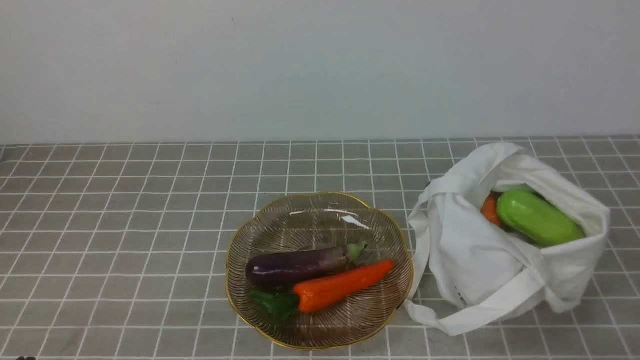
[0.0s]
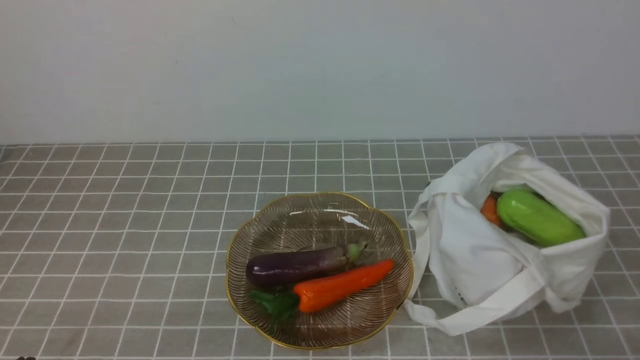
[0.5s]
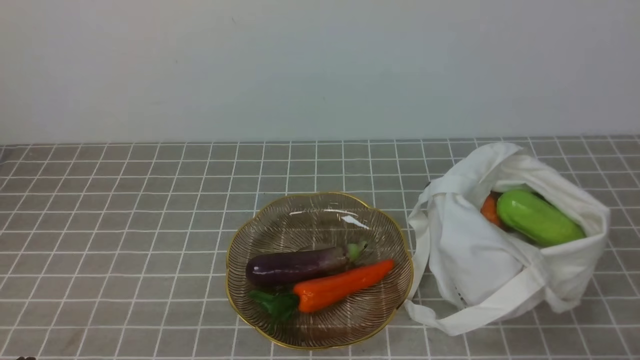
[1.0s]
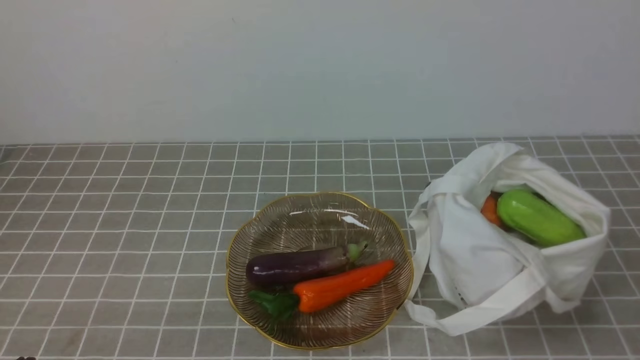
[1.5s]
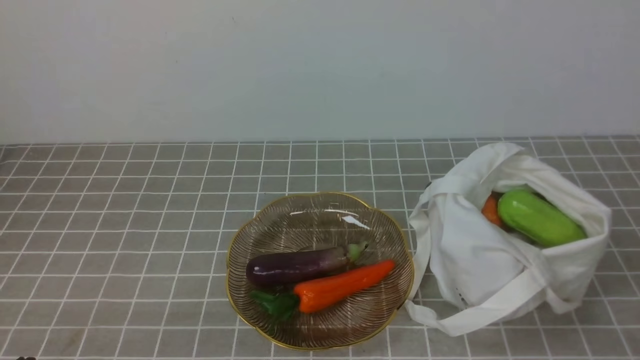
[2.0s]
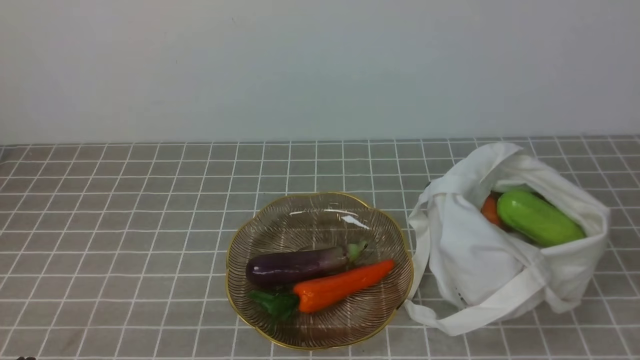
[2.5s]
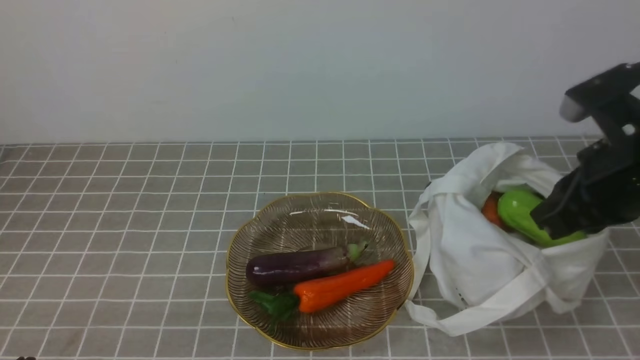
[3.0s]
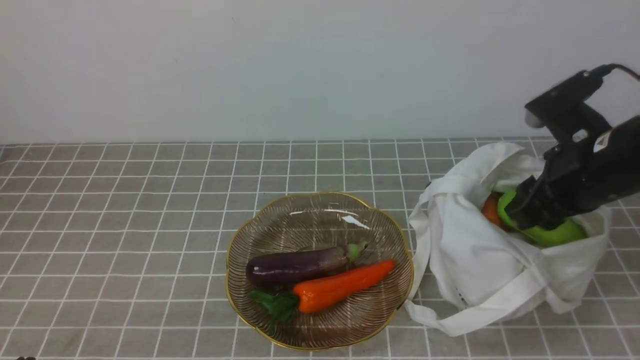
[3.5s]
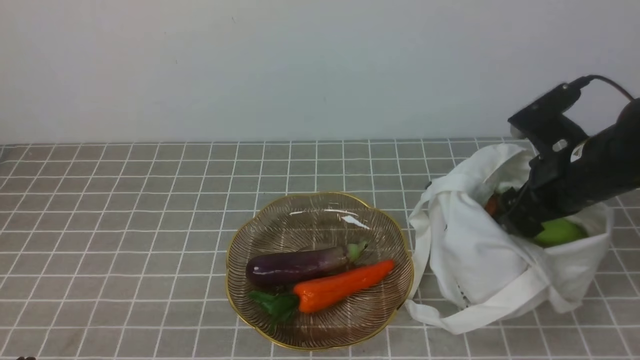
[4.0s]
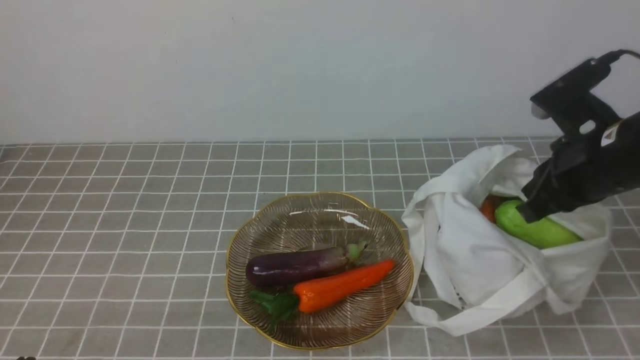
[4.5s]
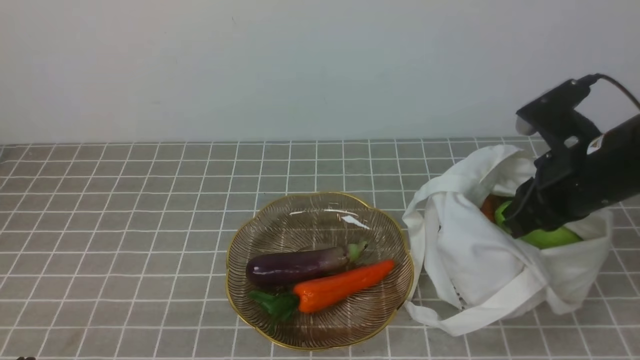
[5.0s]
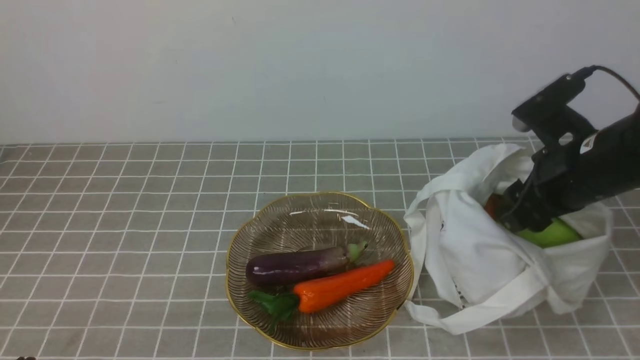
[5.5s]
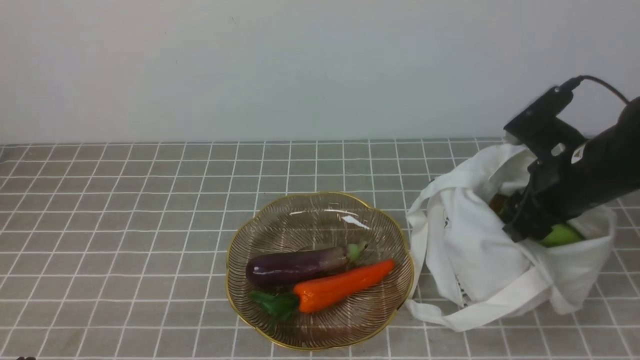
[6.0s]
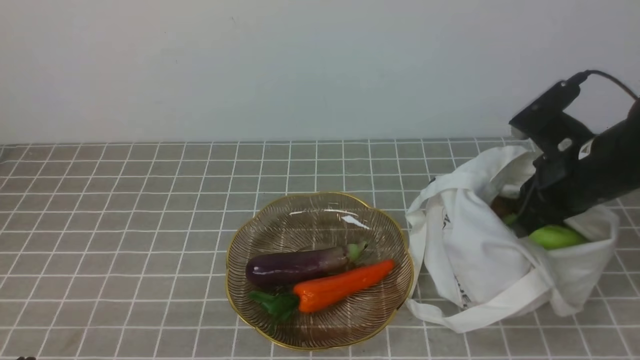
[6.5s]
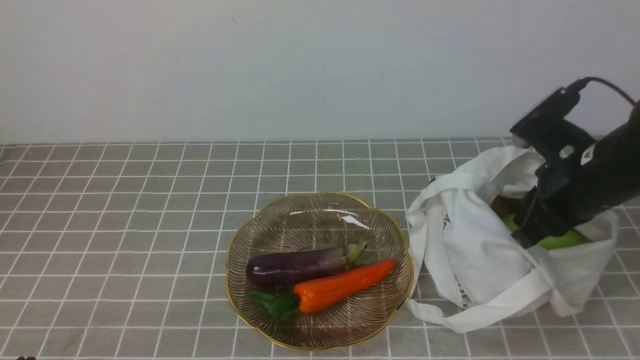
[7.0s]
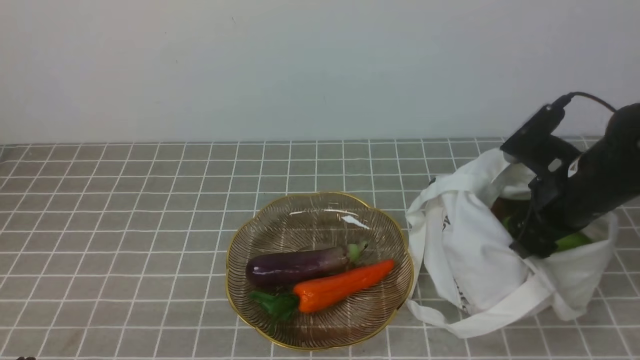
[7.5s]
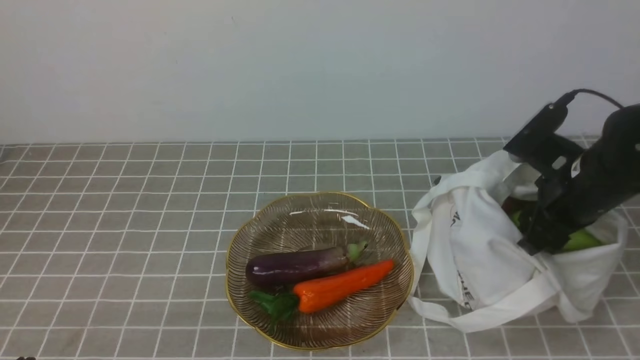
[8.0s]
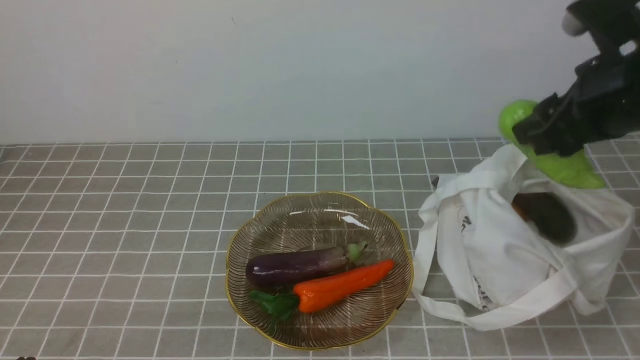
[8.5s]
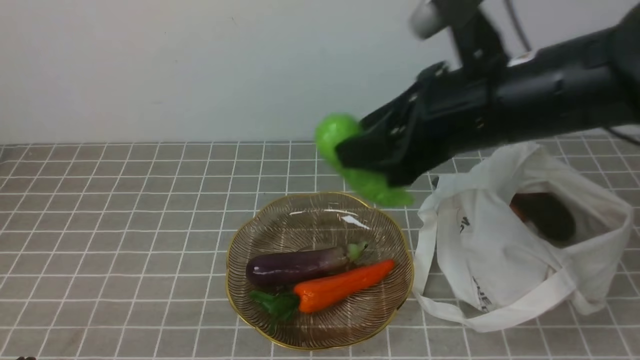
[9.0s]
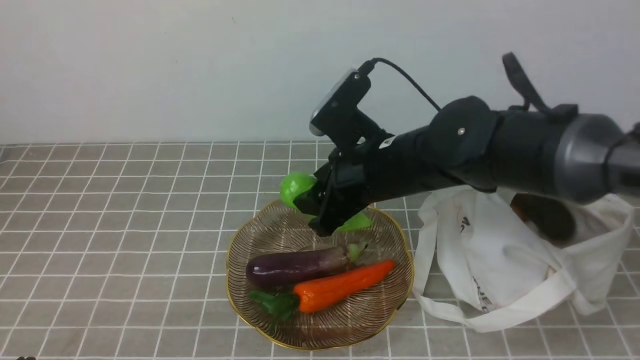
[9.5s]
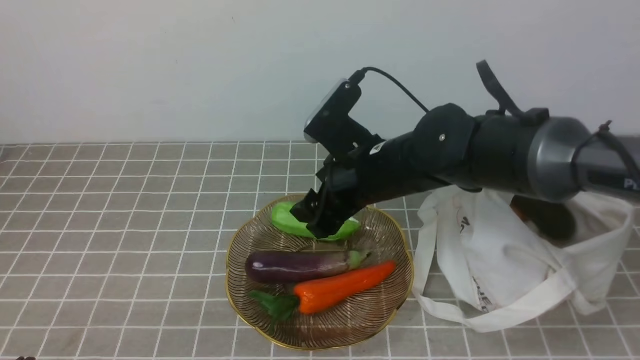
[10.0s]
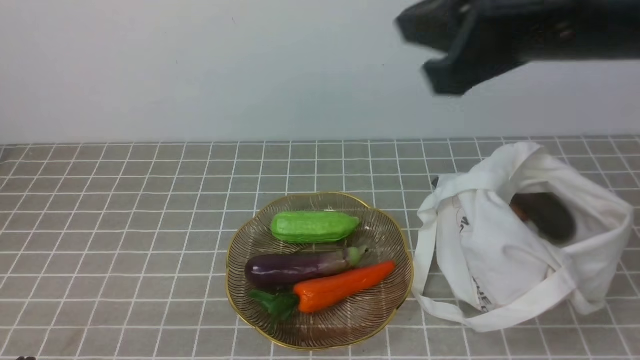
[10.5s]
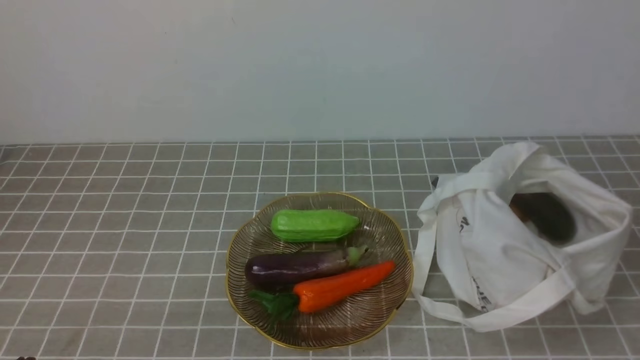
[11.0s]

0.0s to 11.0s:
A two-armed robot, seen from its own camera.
Task of the whole recording: take vegetables from bag on grey coffee tablecloth place on plate.
Step, 0.0s to 7.5s: Grasp the bitter melon with right gripper.
Step, 8.0s to 10.0s: Place the bitter melon on the plate with right gripper.
2.0s to 3.5s: The right gripper moves forward, some 25 cm, and opens its fingers.
3.5s to 5.5s: The right gripper closes, then opens again.
5.5s to 7.5s: The right gripper closes, then reopens.
7.5s to 9.0s: The right gripper travels upward and to the left by about 15 cm.
9.0s to 11.0s: The right gripper travels backward, to the right and upward by some 30 cm, and closes.

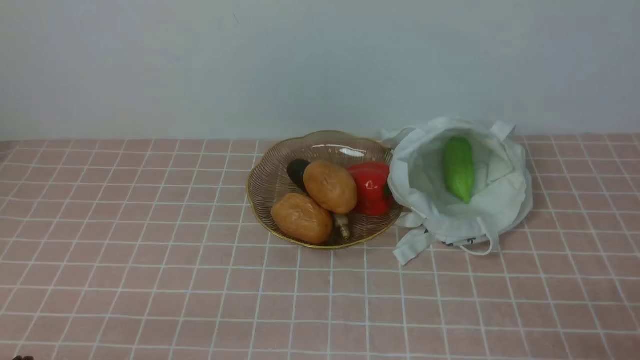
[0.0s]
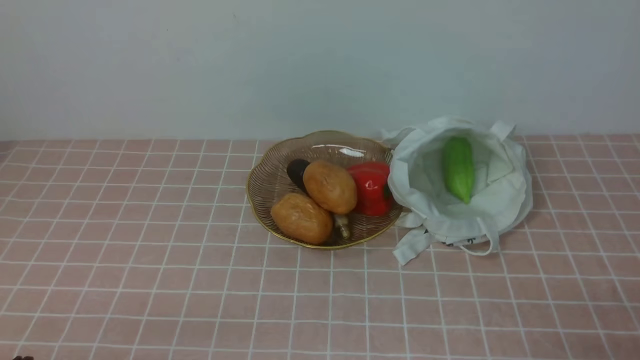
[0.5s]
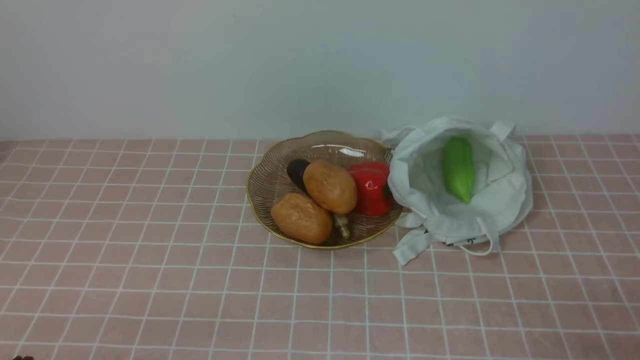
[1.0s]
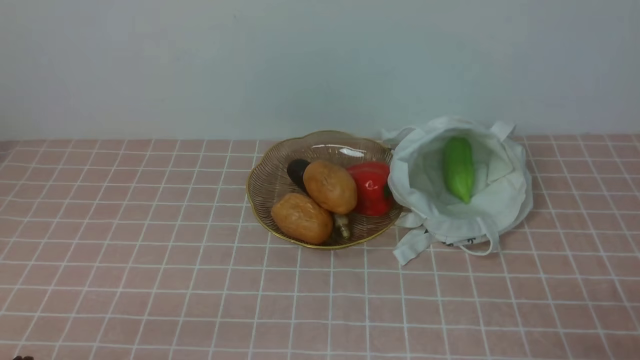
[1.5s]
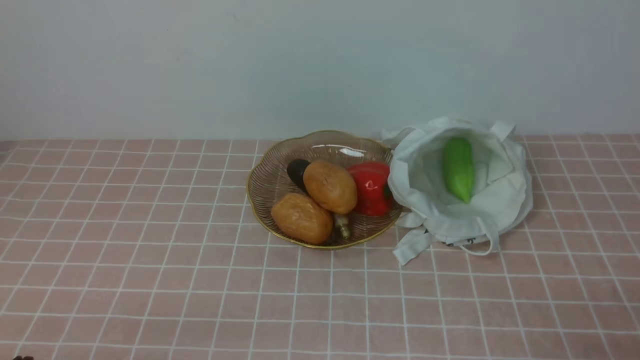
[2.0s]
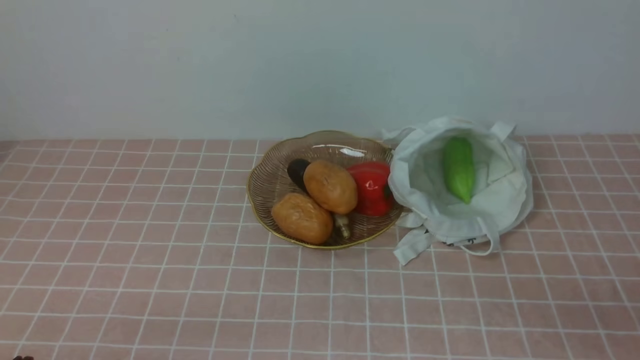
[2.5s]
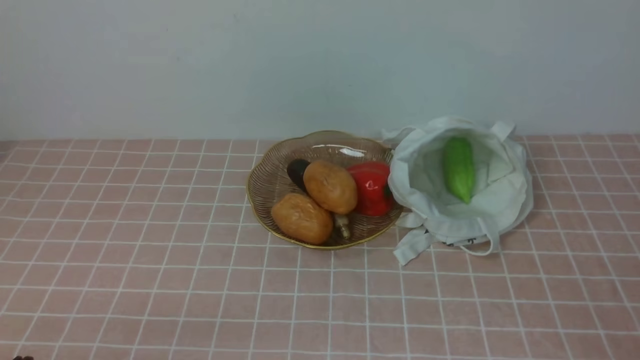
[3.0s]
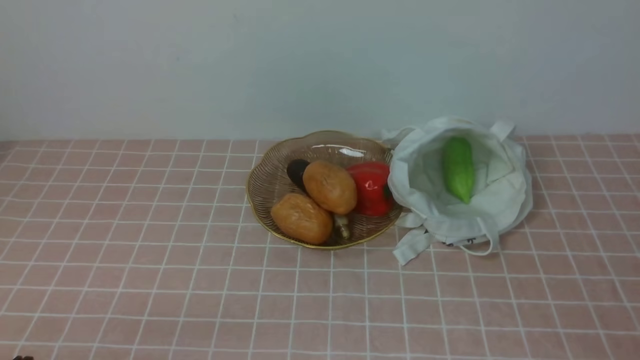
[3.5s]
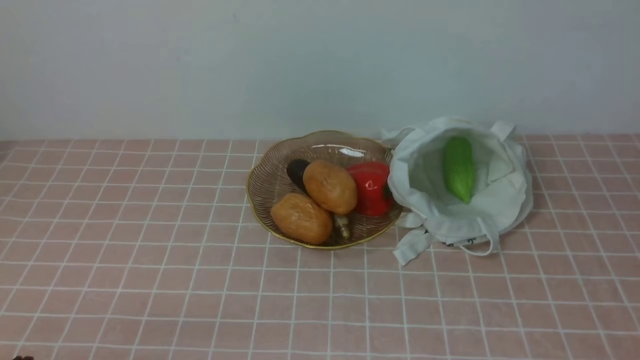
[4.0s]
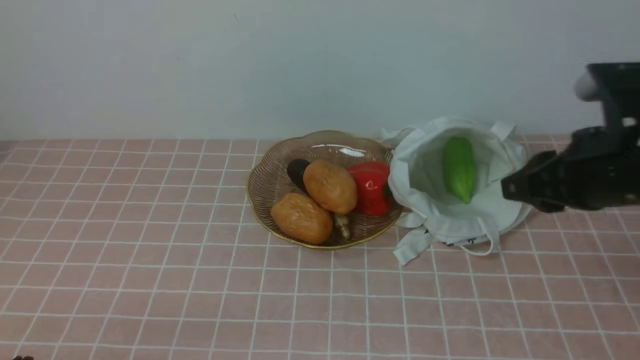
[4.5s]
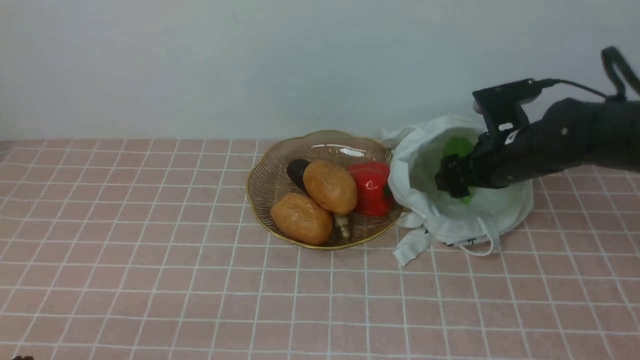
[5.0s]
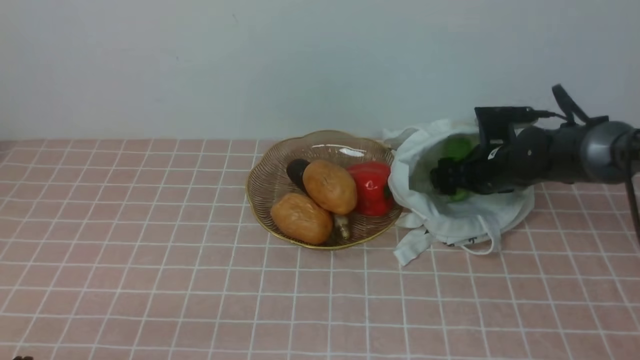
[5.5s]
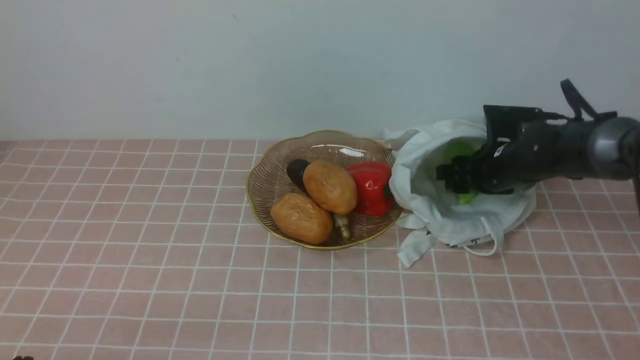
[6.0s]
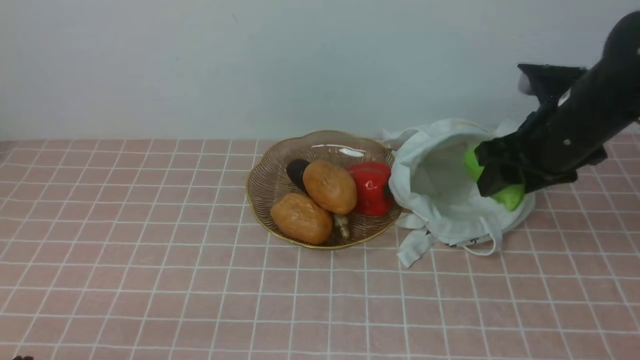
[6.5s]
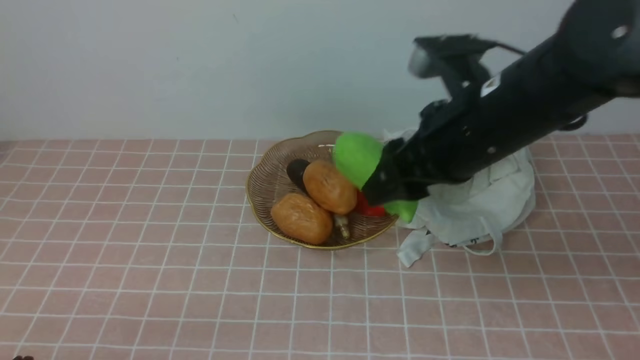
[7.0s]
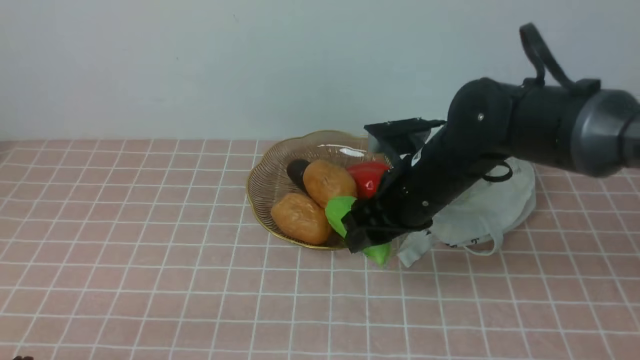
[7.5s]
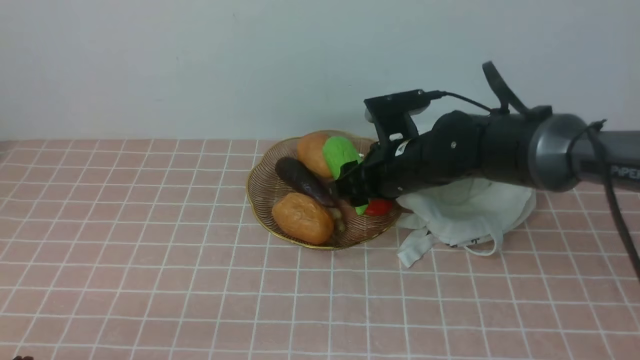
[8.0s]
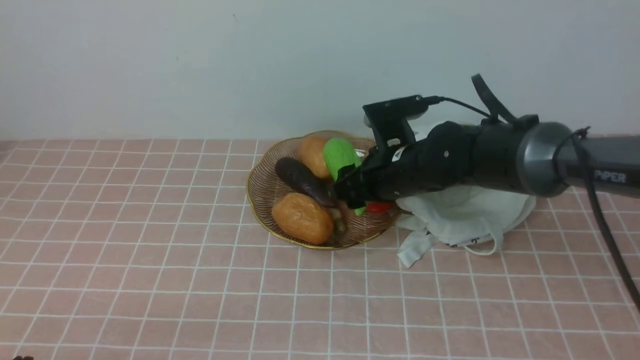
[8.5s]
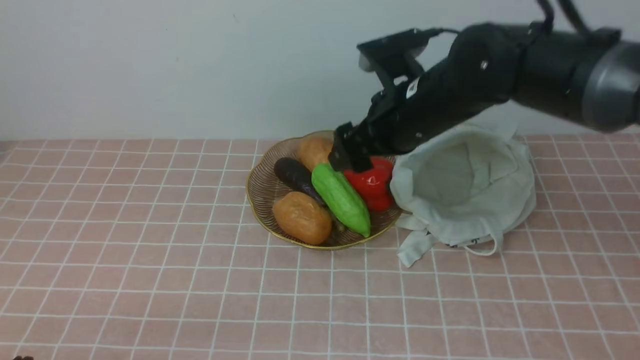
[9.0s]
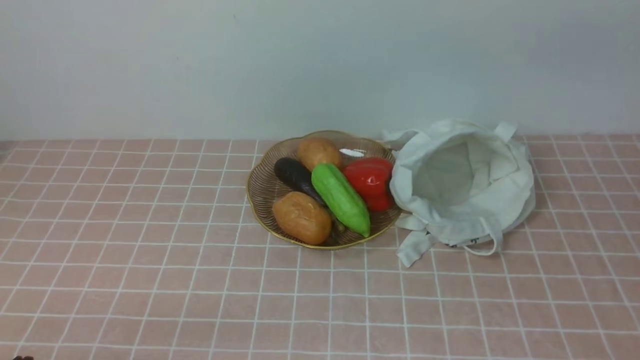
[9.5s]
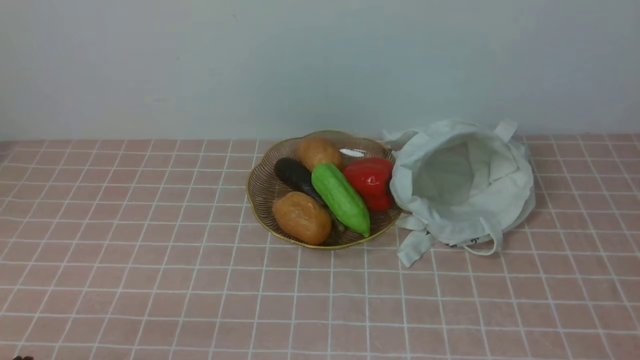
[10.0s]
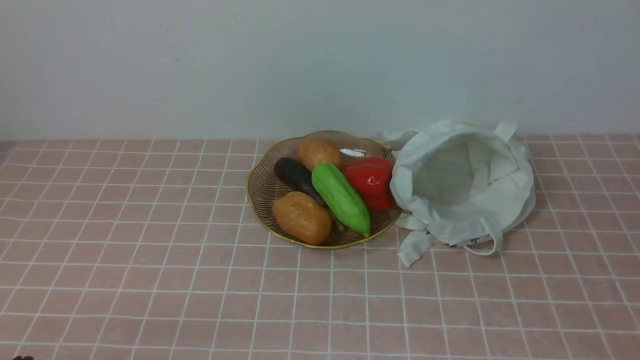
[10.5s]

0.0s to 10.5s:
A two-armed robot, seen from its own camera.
Task of the whole recording: take vegetables from bag on pink coffee tablecloth place on plate.
Step, 0.0s to 5.5s: Grasp the bitter melon with right gripper.
Step, 6.0s to 9.0s: Place the bitter melon on the plate with right gripper.
4.0s to 6.5s: The right gripper moves forward and downward, roughly 30 cm, and opens.
6.5s to 8.5s: The right gripper travels to the left and downward by roughly 15 cm.
8.5s to 10.5s: The right gripper is displaced backward, upward and to the right by approximately 40 cm, and closes up.
